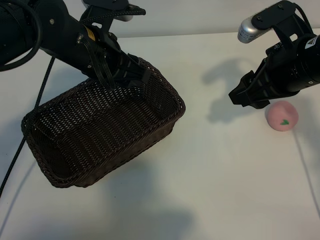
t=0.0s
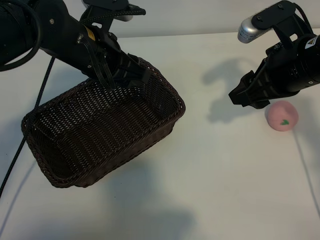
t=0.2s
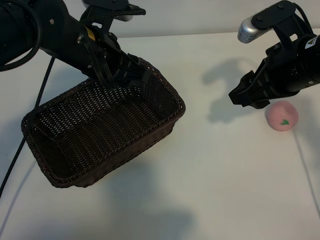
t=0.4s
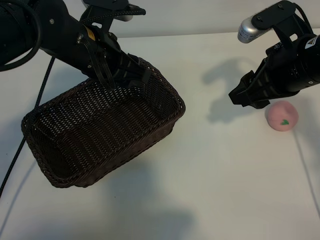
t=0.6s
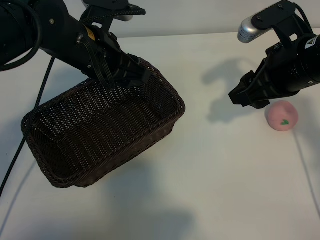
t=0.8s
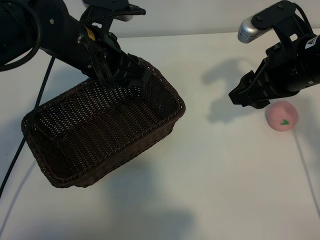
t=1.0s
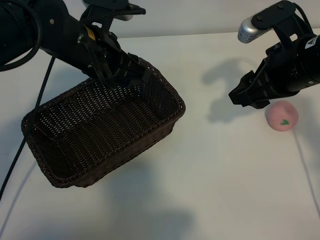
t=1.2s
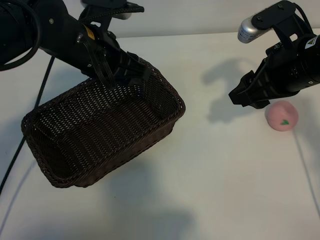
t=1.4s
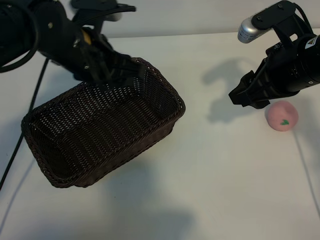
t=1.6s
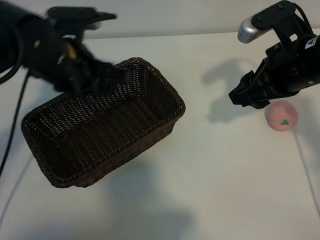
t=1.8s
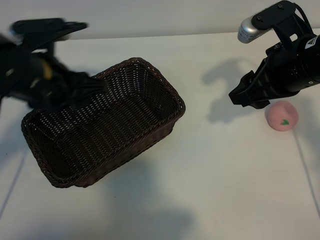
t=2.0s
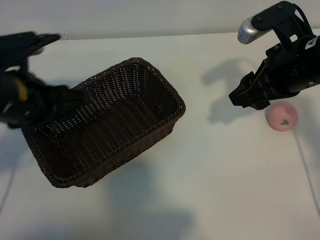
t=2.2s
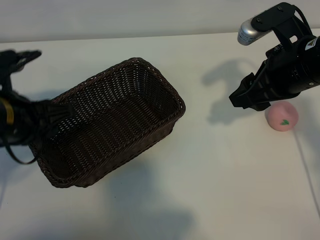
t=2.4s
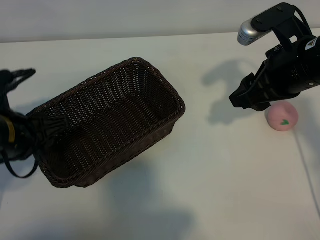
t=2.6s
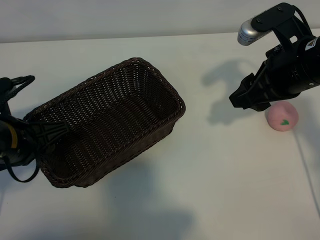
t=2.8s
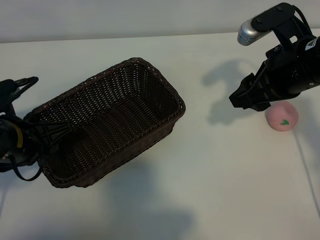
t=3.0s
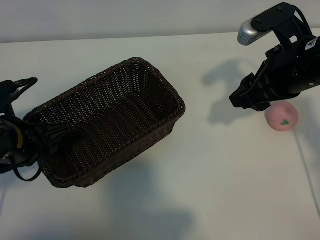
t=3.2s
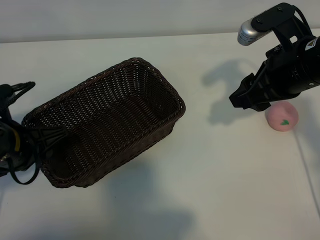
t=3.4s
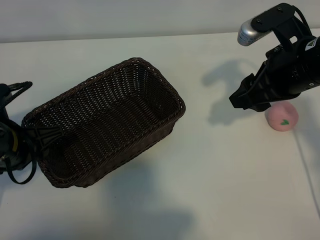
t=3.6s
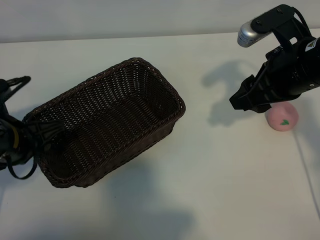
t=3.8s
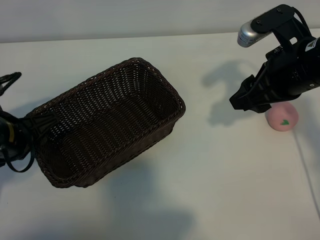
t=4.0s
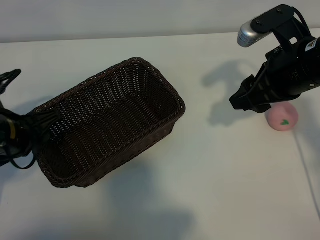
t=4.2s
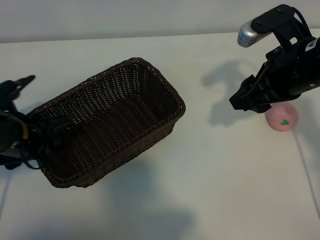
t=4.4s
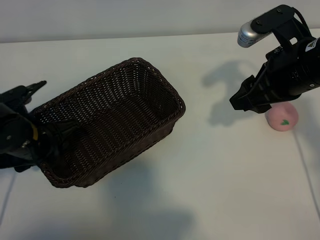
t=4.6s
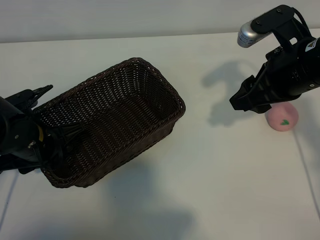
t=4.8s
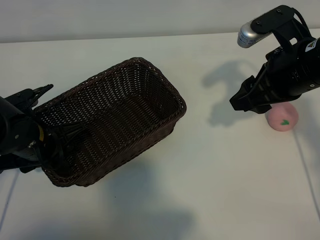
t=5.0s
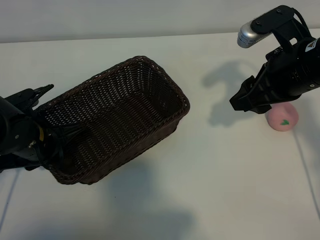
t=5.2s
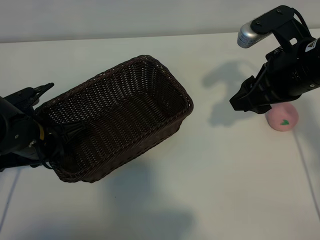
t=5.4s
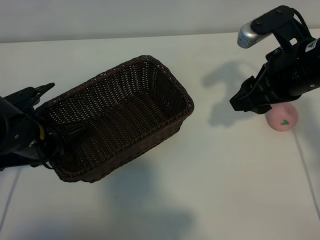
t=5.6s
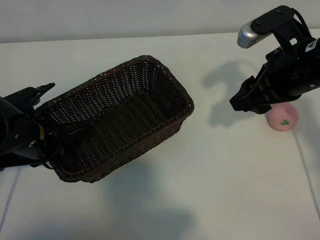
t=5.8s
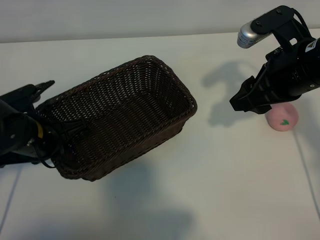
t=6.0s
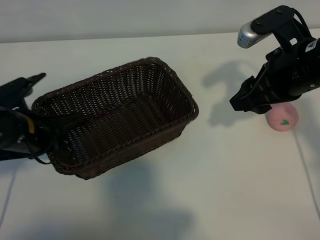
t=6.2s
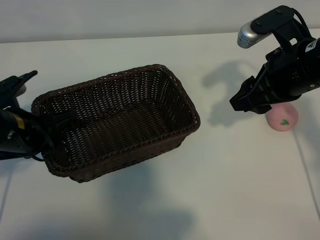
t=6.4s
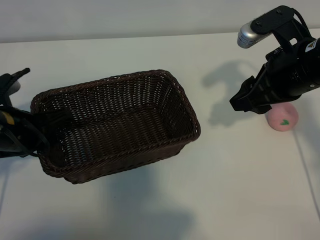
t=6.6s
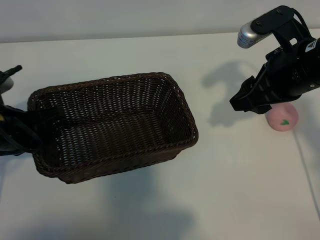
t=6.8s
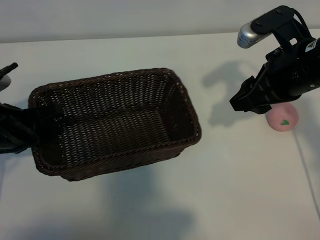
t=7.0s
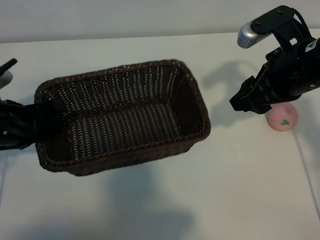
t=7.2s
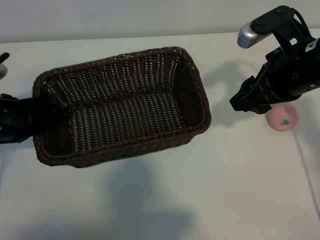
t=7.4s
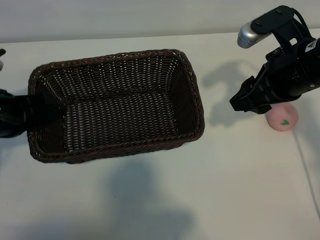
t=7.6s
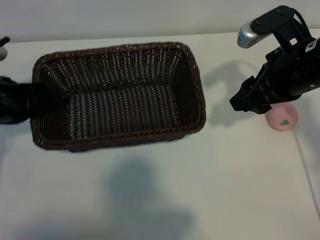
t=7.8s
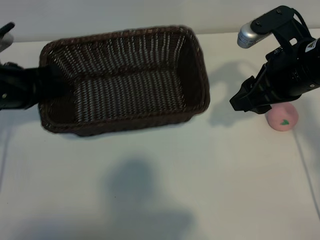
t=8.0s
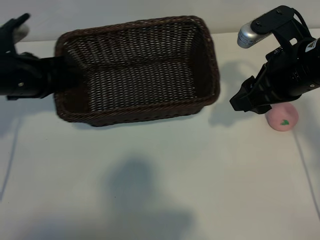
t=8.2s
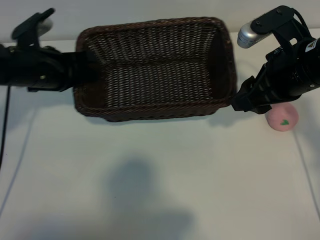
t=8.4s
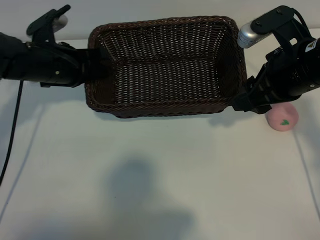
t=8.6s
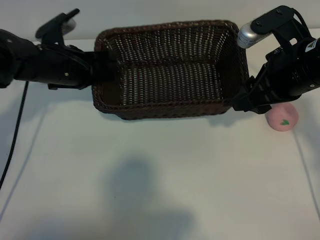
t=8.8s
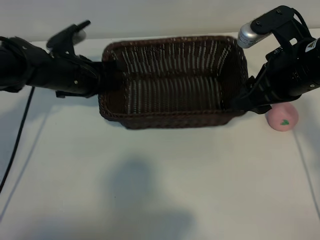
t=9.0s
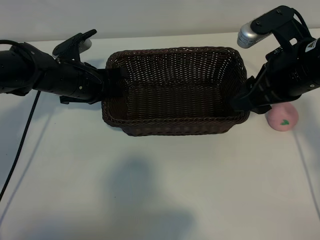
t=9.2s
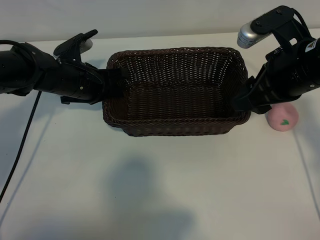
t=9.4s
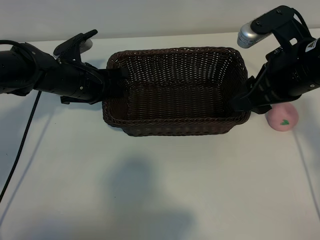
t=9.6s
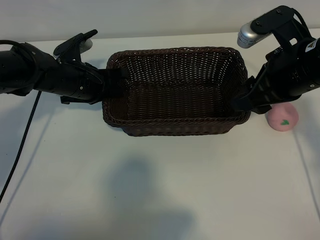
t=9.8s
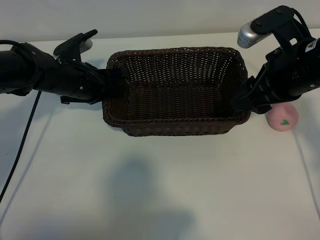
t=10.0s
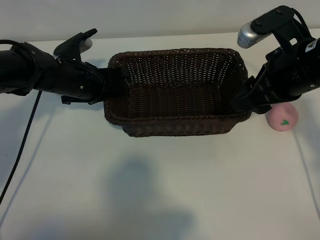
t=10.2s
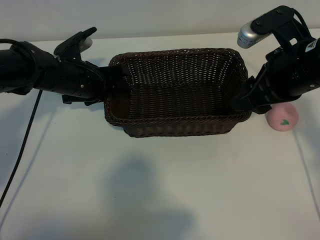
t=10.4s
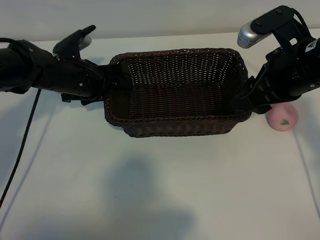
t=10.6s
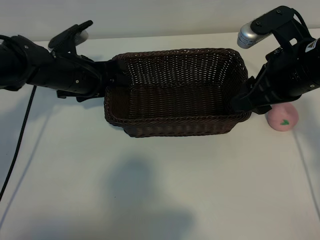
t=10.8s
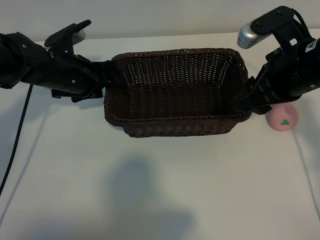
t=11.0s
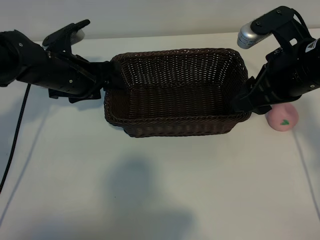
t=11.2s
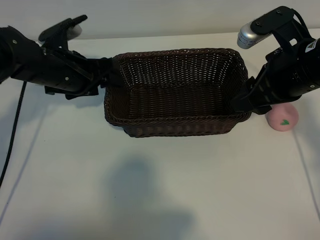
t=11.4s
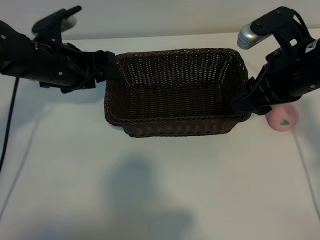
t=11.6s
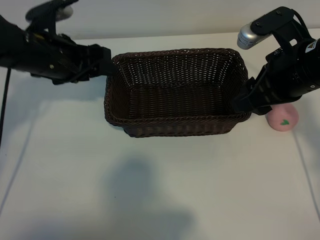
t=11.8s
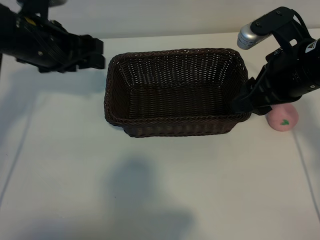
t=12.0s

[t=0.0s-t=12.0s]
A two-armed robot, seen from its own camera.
Task of the whole recording: pick up the peach and put it into the basket.
Step, t=1.4s to t=5.6s: Grasp the basket with left gripper.
Step, t=5.8s to t=11.0s: Place the basket in the center of view with left gripper.

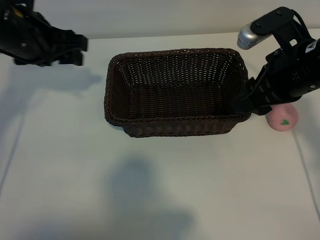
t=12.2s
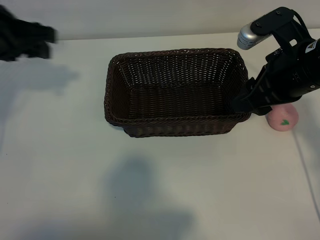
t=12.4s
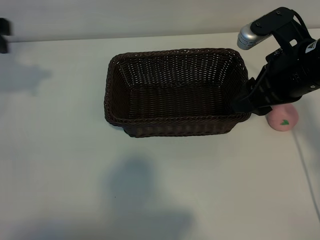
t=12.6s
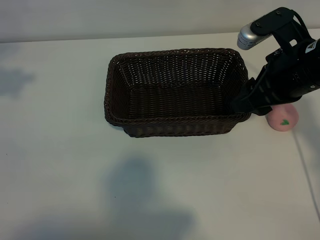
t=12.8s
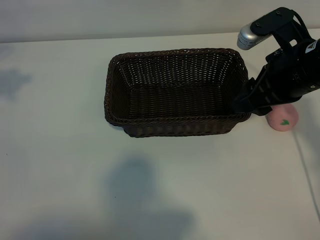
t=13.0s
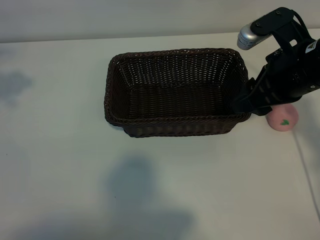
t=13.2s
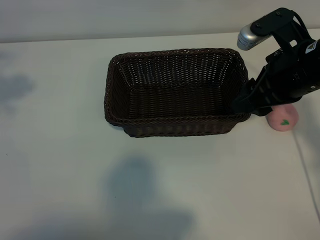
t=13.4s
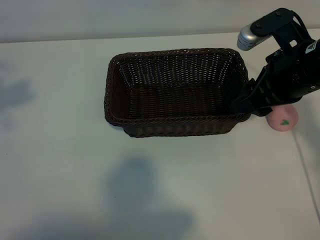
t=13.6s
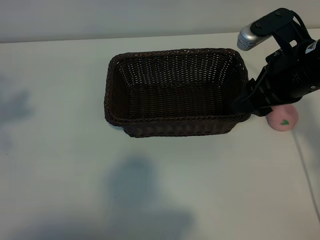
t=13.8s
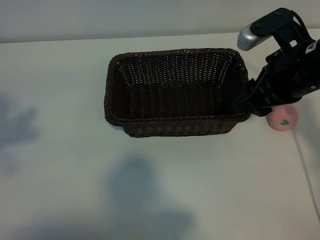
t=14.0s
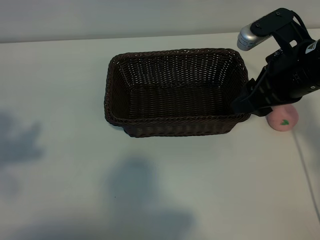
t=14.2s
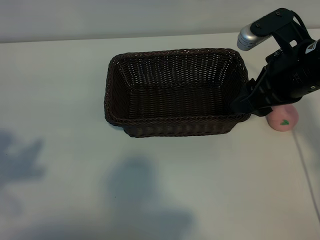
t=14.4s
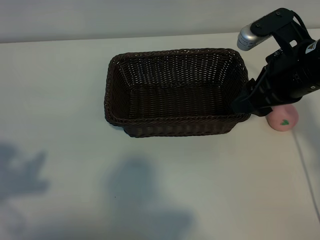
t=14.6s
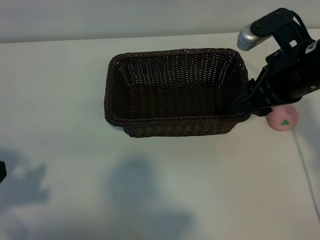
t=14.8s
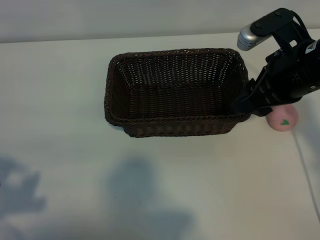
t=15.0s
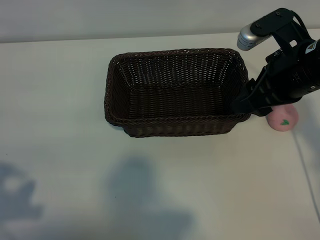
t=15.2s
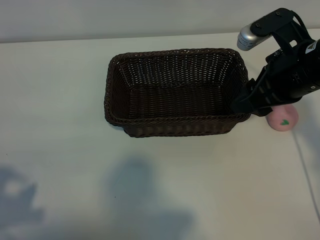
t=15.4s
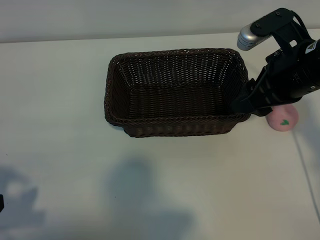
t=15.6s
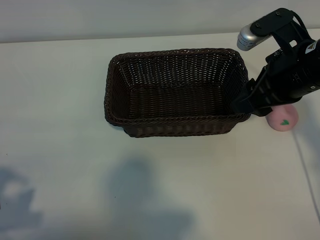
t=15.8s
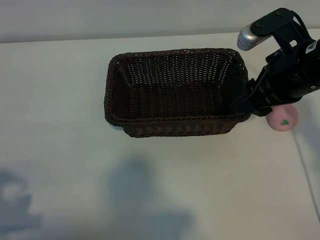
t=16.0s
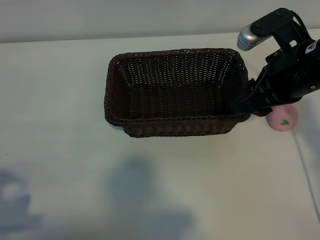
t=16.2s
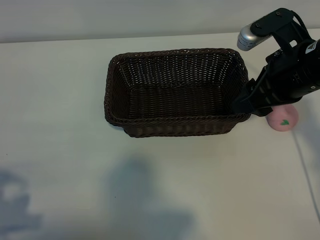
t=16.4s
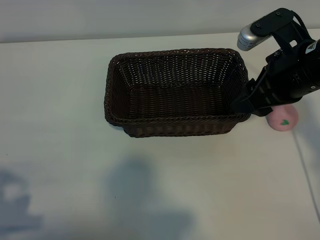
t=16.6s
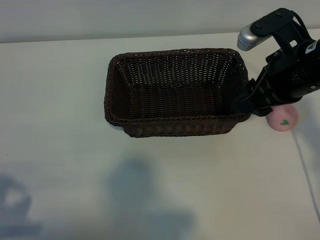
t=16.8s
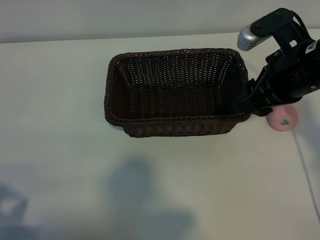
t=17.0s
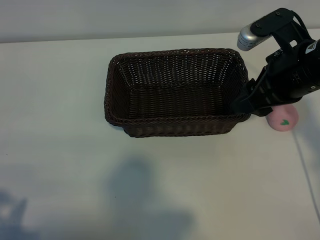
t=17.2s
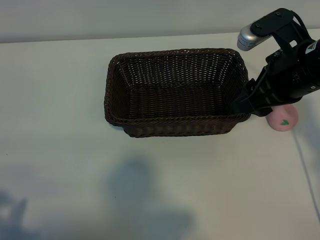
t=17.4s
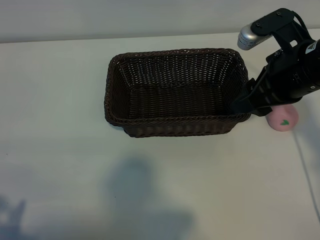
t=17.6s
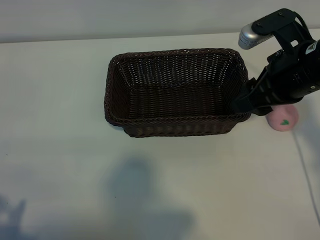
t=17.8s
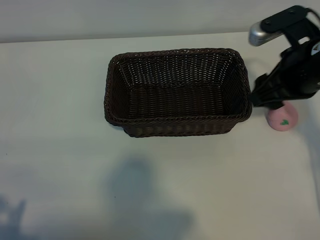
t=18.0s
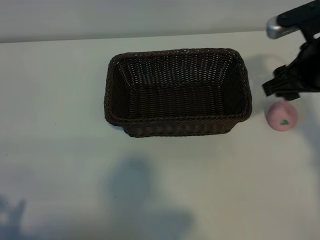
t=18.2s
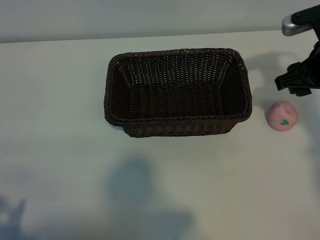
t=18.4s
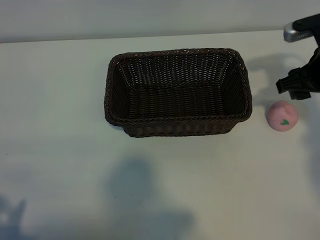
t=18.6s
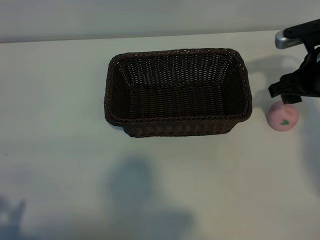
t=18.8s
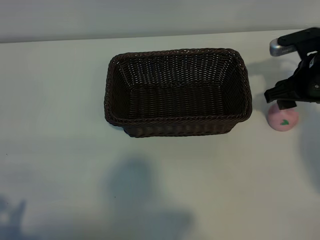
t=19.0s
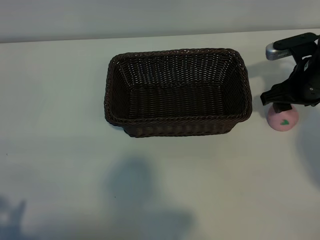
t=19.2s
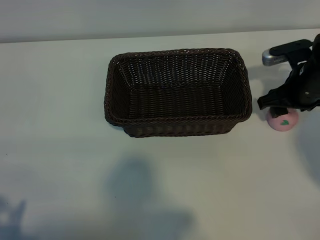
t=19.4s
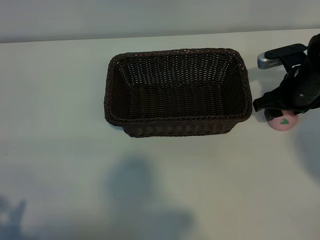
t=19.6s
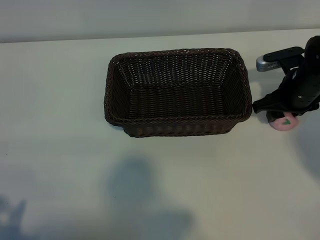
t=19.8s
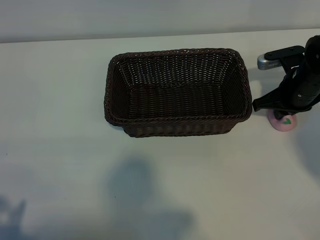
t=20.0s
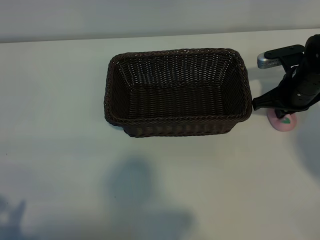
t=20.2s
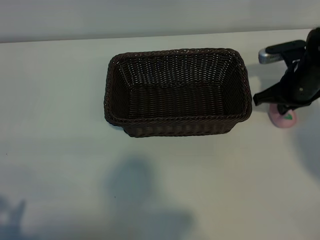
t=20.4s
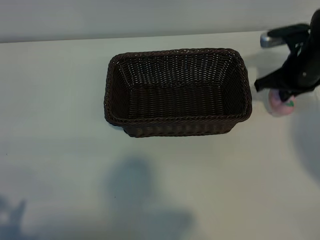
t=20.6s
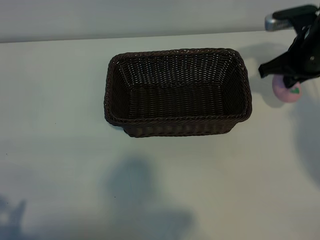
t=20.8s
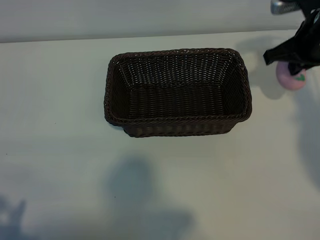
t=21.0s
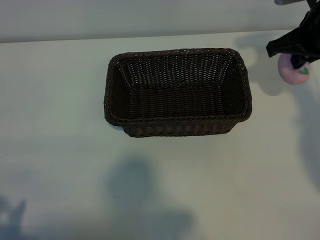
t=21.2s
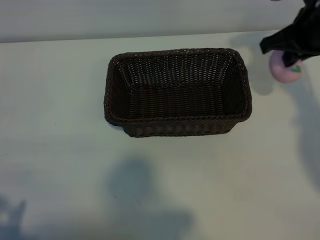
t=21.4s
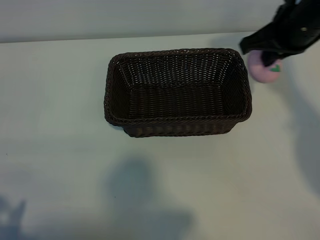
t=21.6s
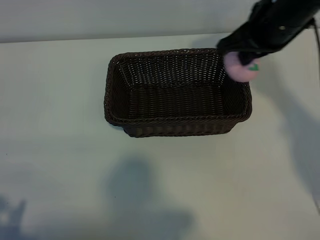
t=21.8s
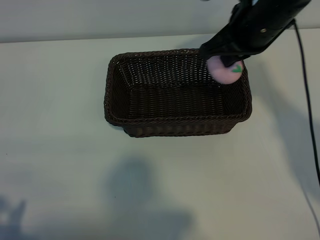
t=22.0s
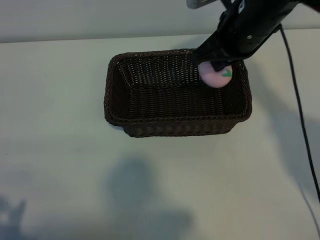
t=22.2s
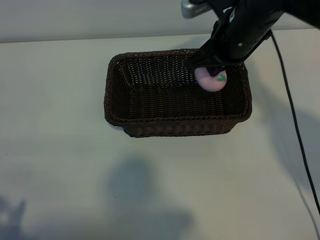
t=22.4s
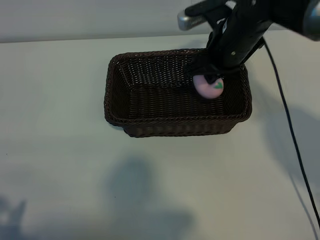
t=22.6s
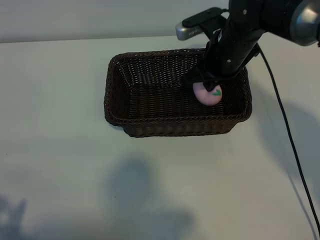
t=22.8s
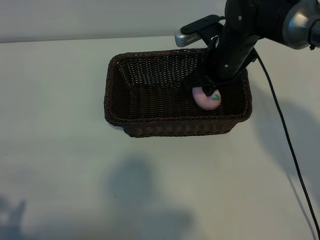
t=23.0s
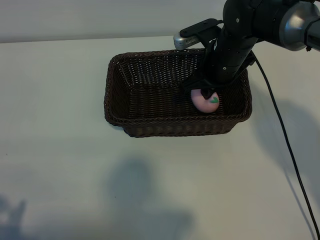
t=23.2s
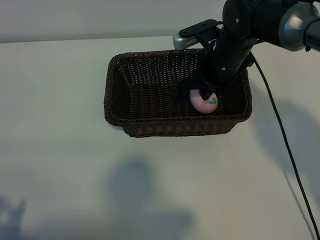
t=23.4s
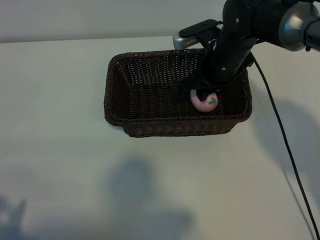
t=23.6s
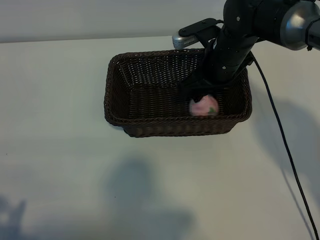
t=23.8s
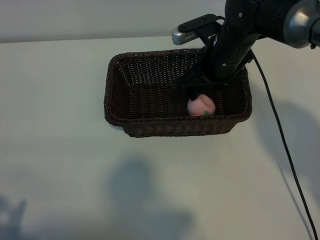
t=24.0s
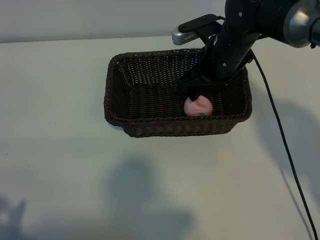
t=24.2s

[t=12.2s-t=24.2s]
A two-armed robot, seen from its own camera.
Task of the whole recording: pick up the peach and put it into the basket.
Step, t=12.2s to t=20.2s: Grasp the peach with right gripper.
Step, t=20.4s to t=24.2s: Place the peach in the basket with right gripper.
